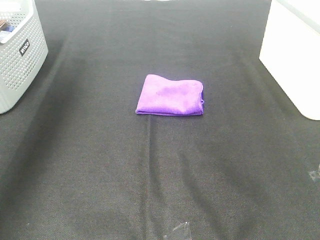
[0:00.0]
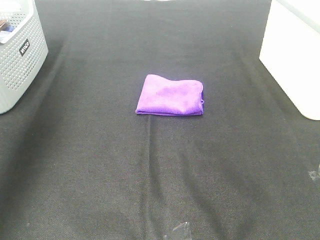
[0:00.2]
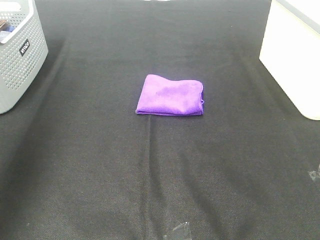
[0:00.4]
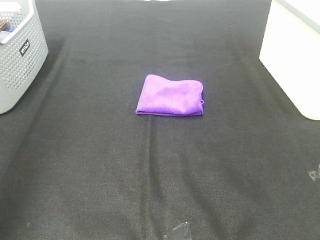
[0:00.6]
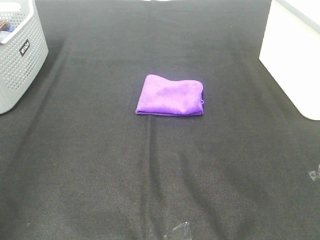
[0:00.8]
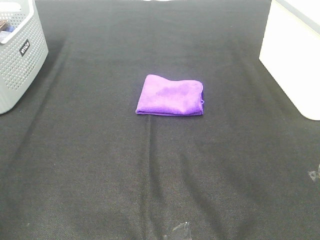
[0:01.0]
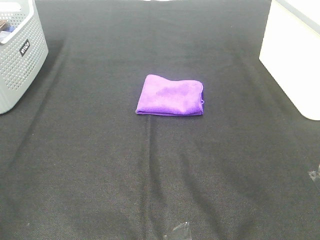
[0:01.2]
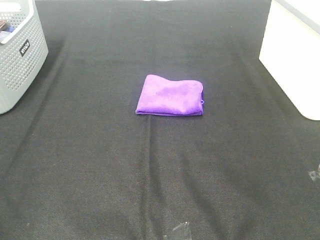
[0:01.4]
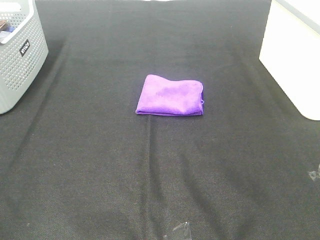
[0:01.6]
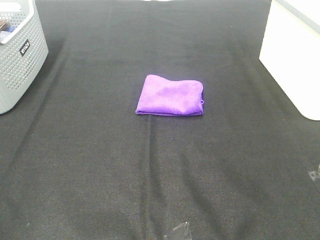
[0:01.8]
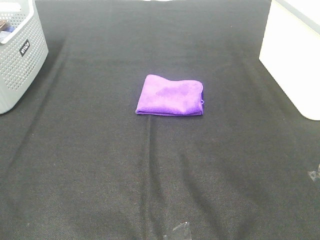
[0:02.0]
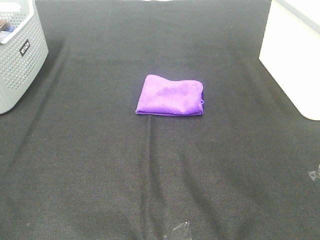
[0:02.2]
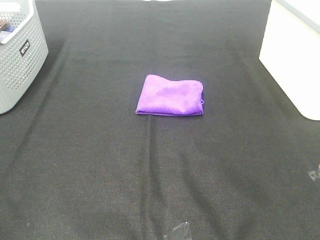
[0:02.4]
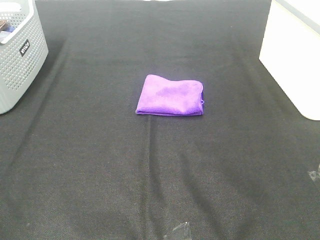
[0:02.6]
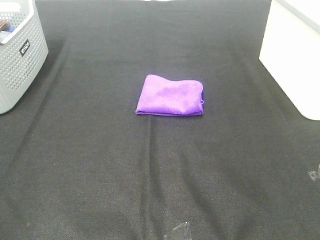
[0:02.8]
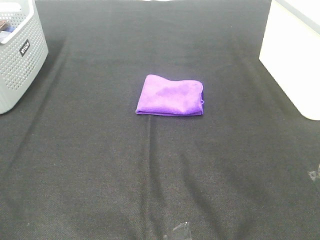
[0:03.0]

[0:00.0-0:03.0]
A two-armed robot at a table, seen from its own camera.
Task of the whole recording: Fold towels.
0:00.0 to 0:01.6: The left gripper travels backward by about 40 cm.
0:01.6 to 0:03.0: The two grippers keep their place.

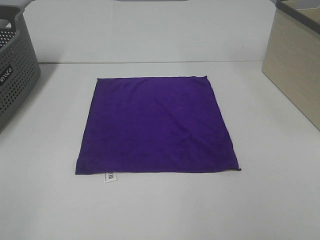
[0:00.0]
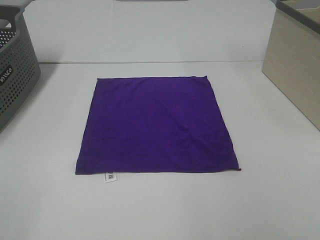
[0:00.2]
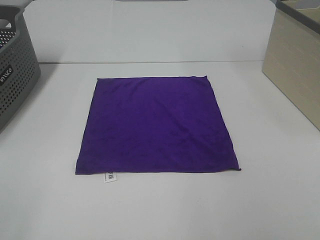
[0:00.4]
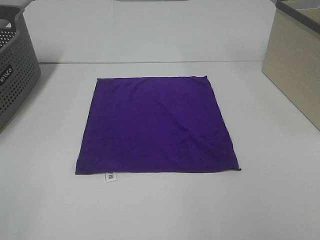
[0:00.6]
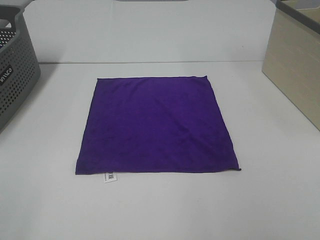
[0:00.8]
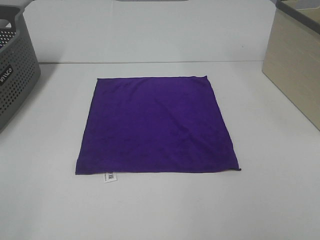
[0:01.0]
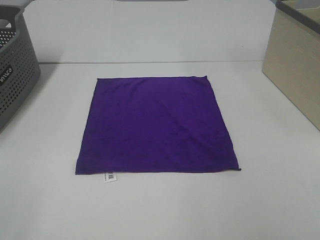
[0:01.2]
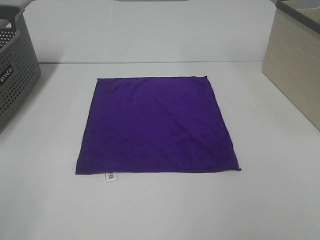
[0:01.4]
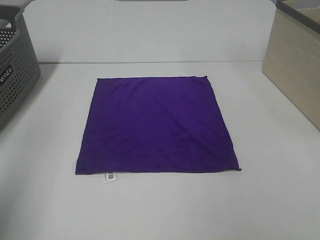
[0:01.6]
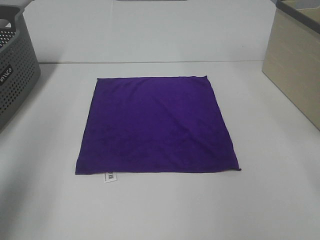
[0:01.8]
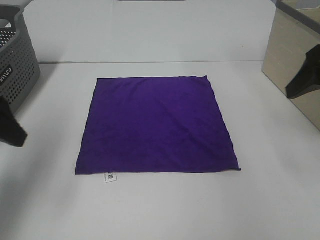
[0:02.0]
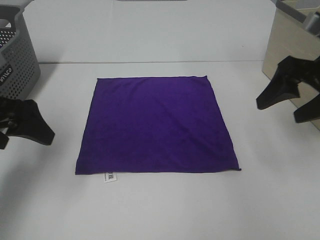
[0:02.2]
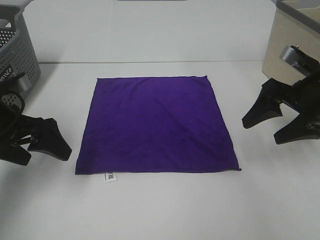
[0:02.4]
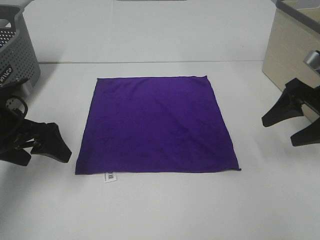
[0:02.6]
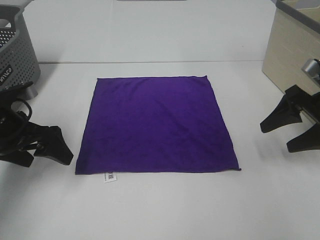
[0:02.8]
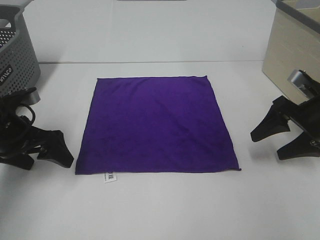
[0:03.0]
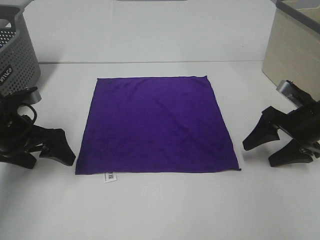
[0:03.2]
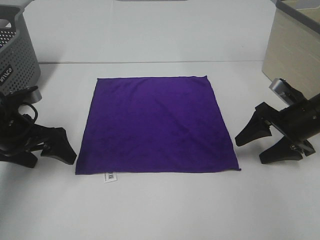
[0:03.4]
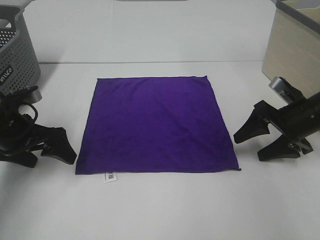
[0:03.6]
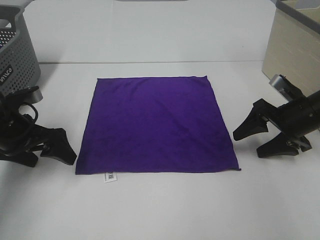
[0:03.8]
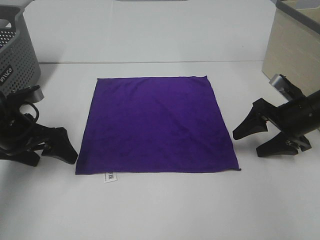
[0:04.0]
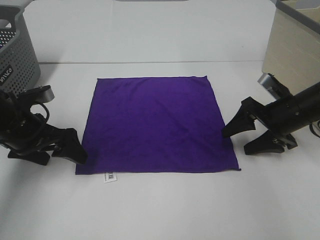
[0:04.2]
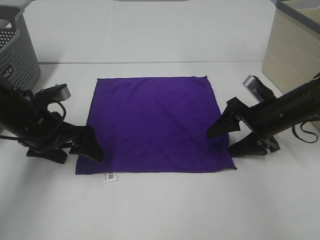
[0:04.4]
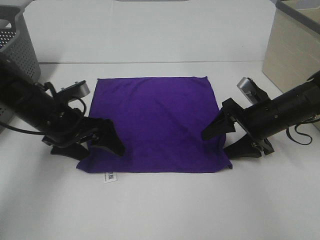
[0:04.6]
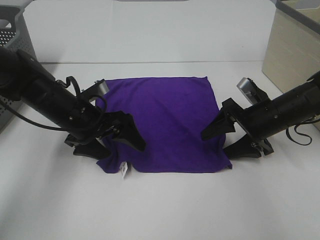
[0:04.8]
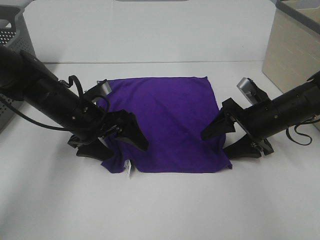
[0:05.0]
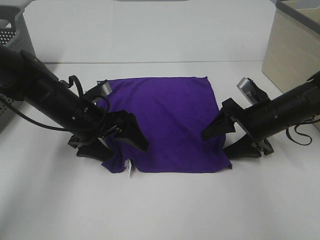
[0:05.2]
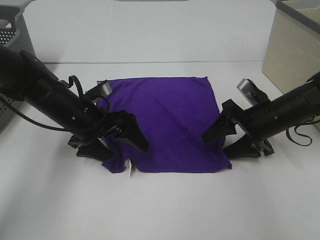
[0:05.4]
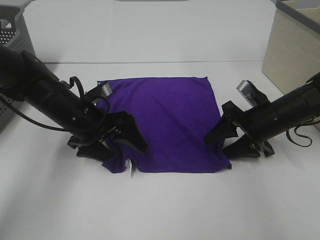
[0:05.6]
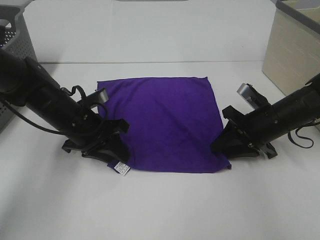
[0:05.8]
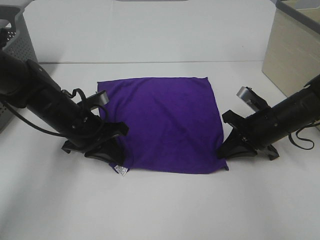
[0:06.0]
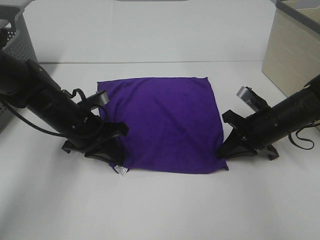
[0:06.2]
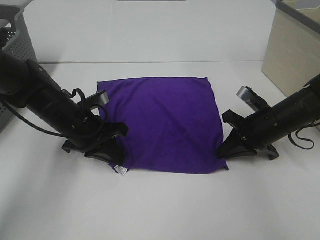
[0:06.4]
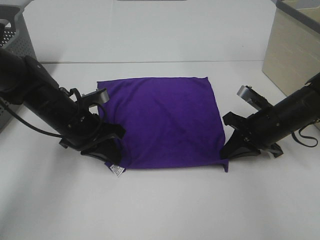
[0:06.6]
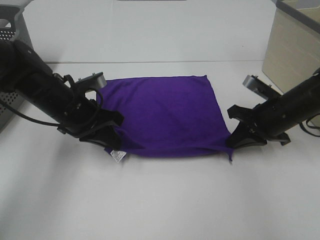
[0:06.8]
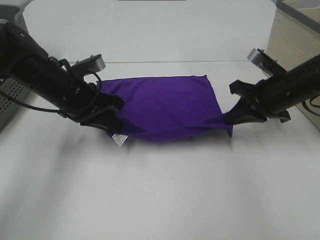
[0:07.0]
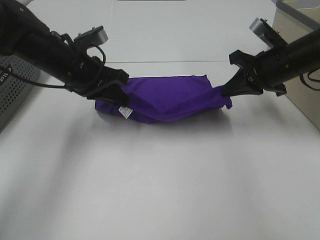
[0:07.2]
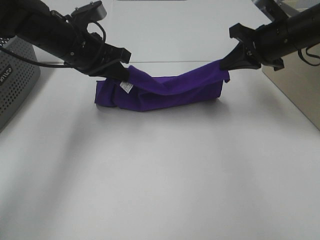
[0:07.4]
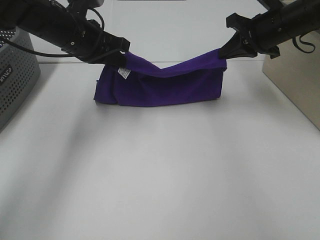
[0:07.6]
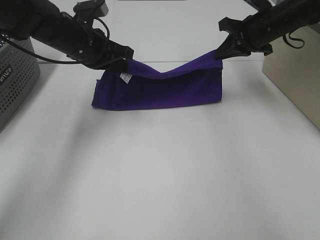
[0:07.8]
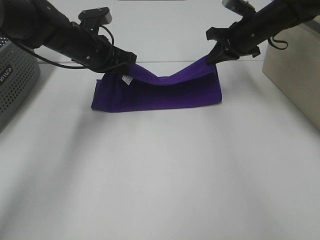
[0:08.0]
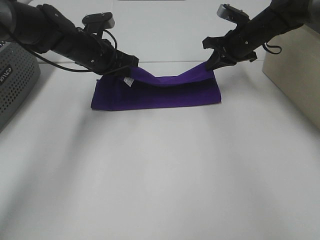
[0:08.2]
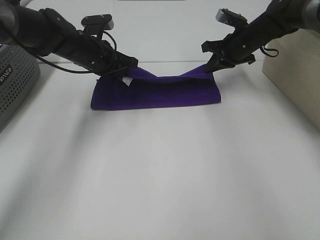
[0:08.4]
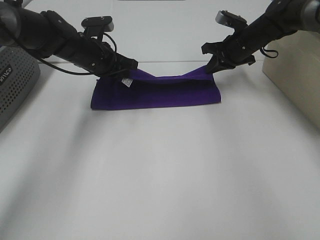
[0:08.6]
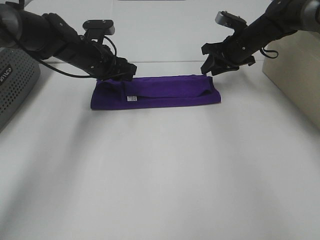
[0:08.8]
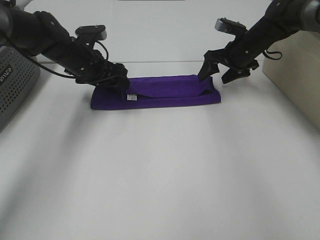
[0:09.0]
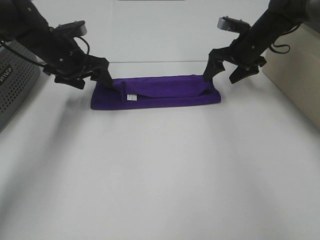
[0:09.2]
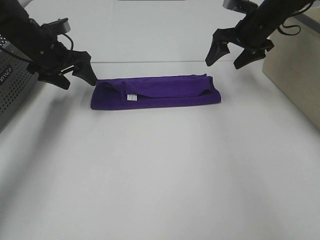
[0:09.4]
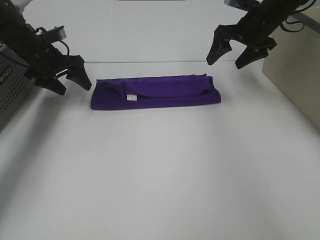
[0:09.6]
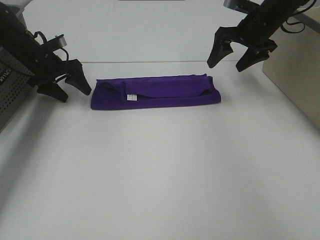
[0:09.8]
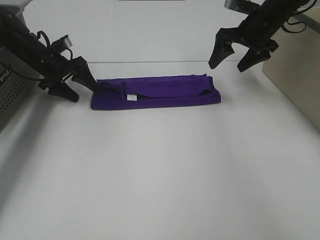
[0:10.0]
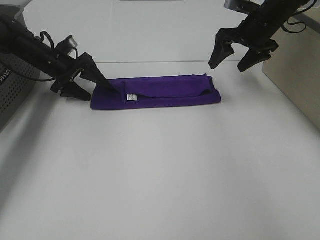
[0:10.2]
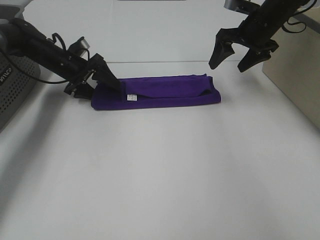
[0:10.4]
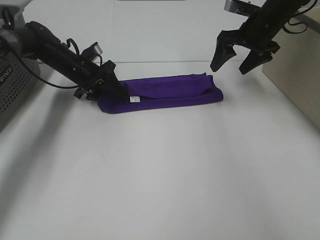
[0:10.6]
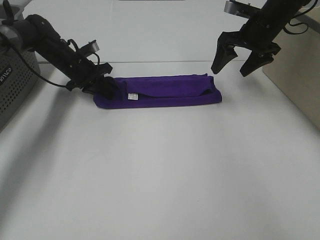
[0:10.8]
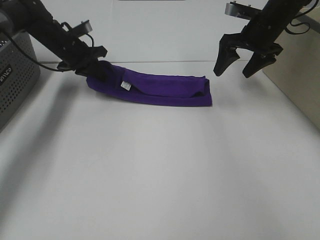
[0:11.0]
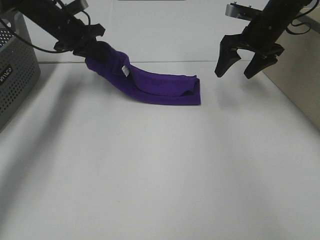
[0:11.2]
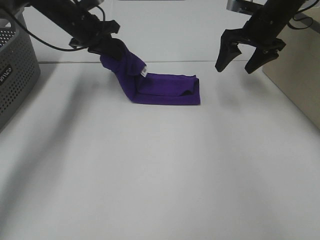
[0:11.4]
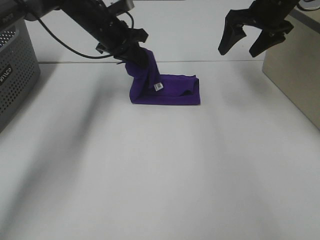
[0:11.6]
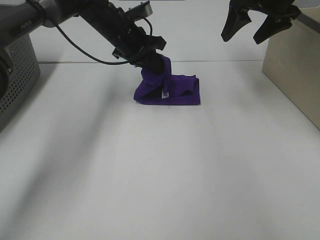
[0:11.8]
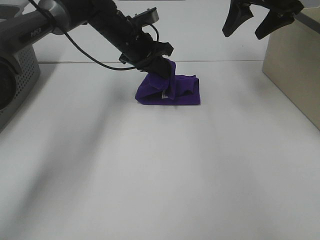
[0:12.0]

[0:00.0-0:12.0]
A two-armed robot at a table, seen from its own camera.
Task of the whole recording: Fold towels.
Step, 0:00.0 to 0:06.0: Left hand: grab the bottom left corner of purple towel.
Step, 0:00.0 to 0:06.0: Right hand: grab the bottom right corner of purple towel.
Step, 0:06.2 to 0:08.8: Left hand: fold the purple towel up.
Step, 0:06.2 to 0:08.8: Right hand: fold the purple towel up.
0:00.0 to 0:01.6: The left gripper moves forward, approximately 15 cm.
0:01.6 to 0:03.0: Both grippers move downward and forward, about 25 cm.
0:03.0 to 0:04.4: The left gripper moves roughly 5 cm, while the right gripper moves to the left, roughly 5 cm.
0:04.4 to 0:06.0: The right gripper closes its fingers. The left gripper goes some 5 cm to the right, and closes up.
0:06.0 to 0:07.6: Both grippers travel together upward and forward, about 15 cm.
0:07.6 to 0:09.0: Both grippers travel together downward and forward, some 10 cm. The right gripper opens up, while the left gripper opens its fingers.
0:09.0 to 0:10.4: The right gripper heads upward, covering roughly 5 cm. Meanwhile the left gripper moves forward and downward, approximately 5 cm.
0:10.4 to 0:12.0: The right gripper heads upward, covering about 10 cm, while the left gripper heads to the right and upward, covering roughly 15 cm, and closes its fingers.

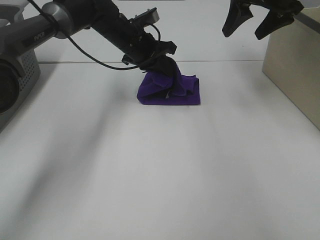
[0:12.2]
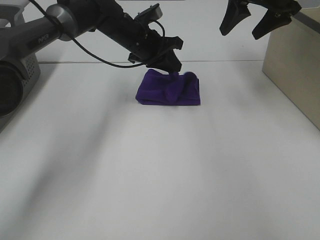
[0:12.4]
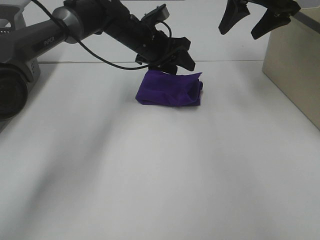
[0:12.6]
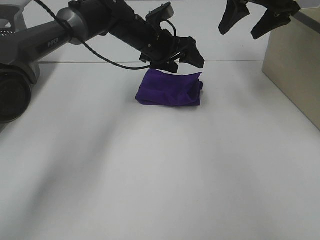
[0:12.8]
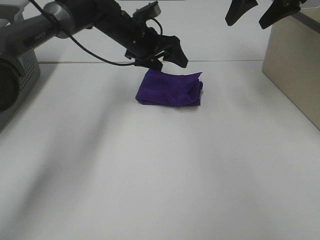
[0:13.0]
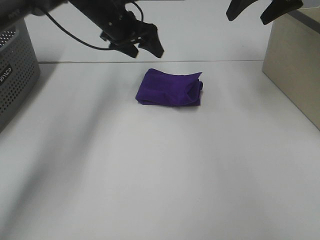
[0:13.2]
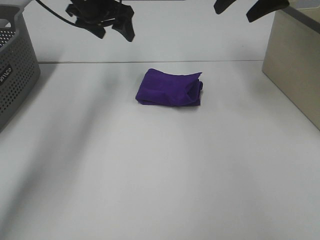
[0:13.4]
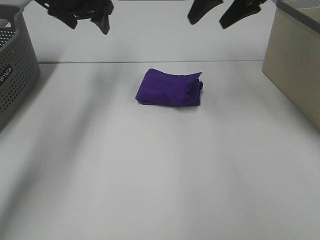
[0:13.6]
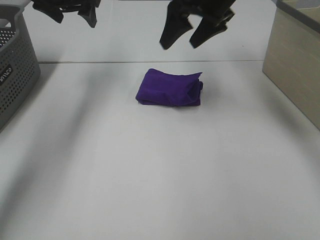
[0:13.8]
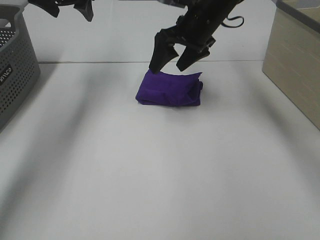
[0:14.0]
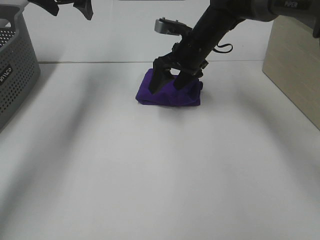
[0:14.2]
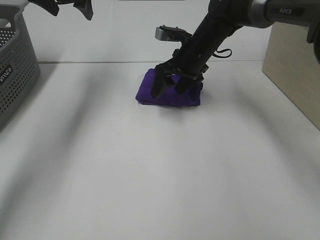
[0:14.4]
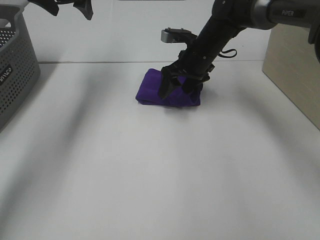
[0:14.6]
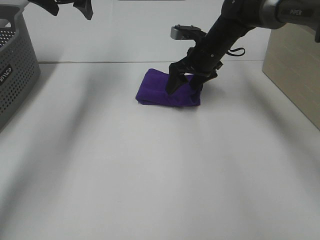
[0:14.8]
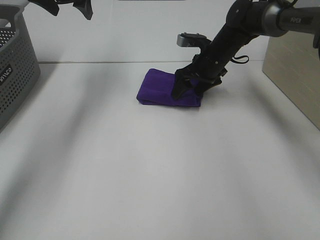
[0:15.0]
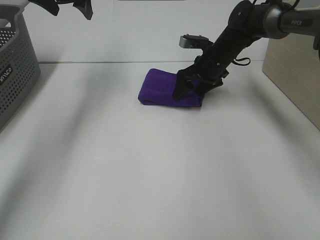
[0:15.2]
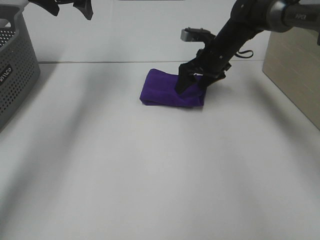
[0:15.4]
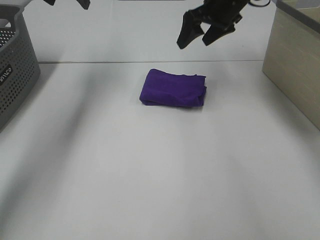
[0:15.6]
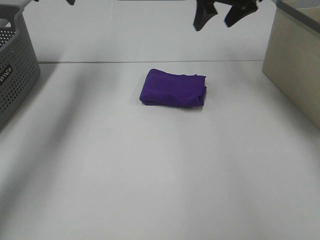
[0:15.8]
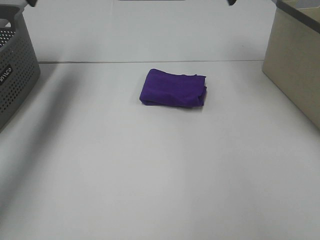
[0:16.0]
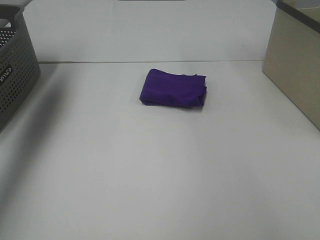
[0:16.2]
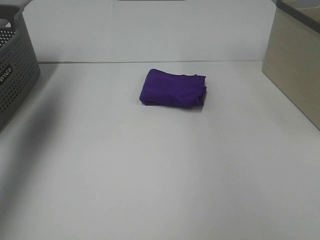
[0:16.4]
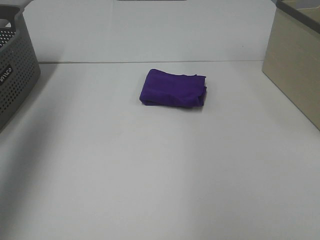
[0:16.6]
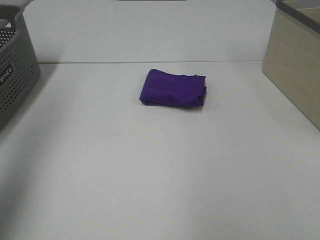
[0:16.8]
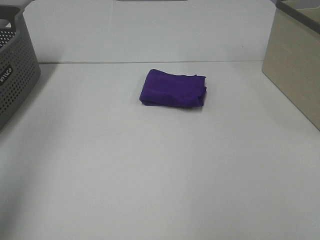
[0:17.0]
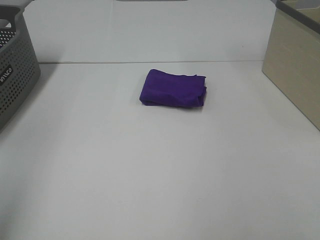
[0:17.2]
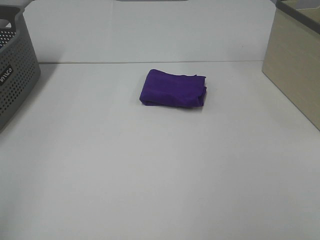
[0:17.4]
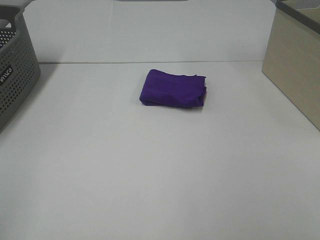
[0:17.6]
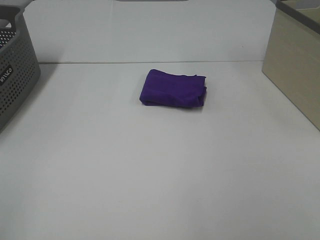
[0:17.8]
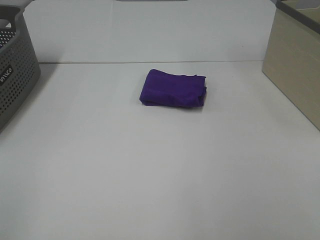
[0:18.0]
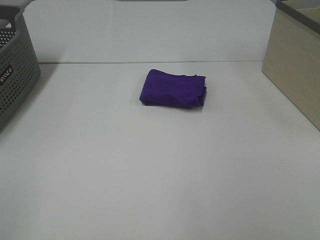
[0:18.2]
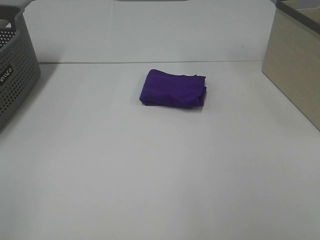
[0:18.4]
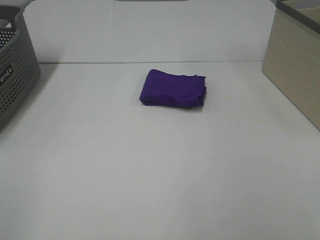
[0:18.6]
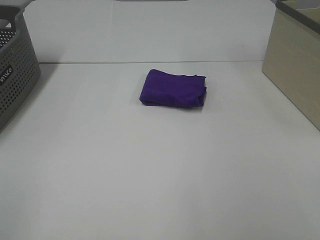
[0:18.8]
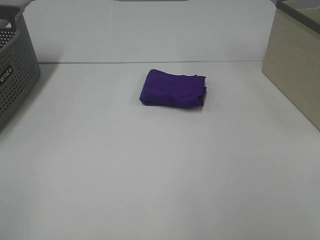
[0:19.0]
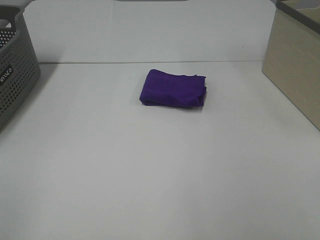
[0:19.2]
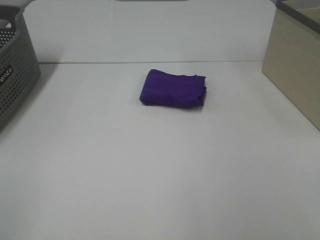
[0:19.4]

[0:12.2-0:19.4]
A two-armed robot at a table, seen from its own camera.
Task of the whole recording: Fold towels.
0:12.2 to 0:13.6: The right gripper heads to the left, covering roughly 5 cm, while the left gripper moves to the left and upward, approximately 15 cm, and opens its fingers.
0:13.6 to 0:15.0: The right gripper heads downward, covering roughly 20 cm.
0:15.0 to 0:16.6: The left gripper moves backward, upward and to the left, roughly 35 cm. The right gripper heads upward, backward and to the right, covering roughly 40 cm.
0:16.6 to 0:18.0: The left gripper shifts approximately 30 cm backward and downward.
0:18.0 to 0:19.4: The two grippers keep their place.
